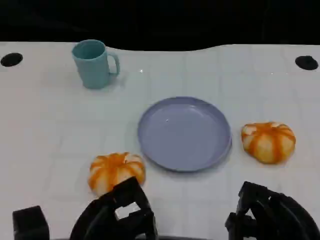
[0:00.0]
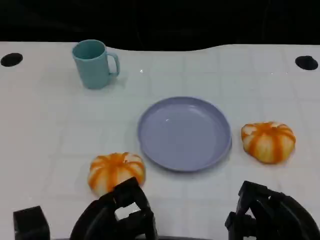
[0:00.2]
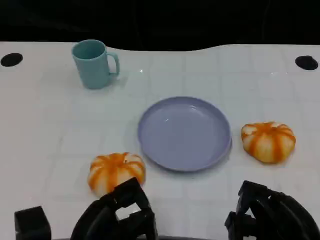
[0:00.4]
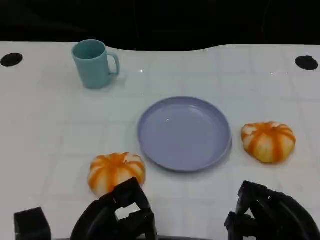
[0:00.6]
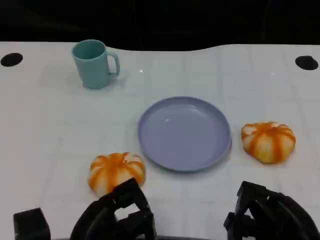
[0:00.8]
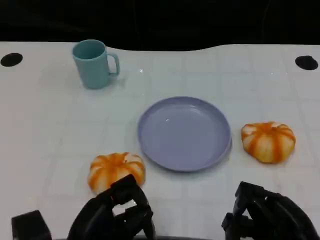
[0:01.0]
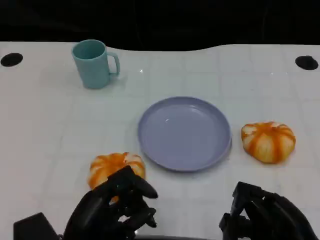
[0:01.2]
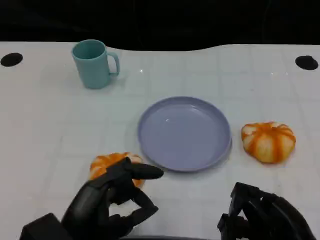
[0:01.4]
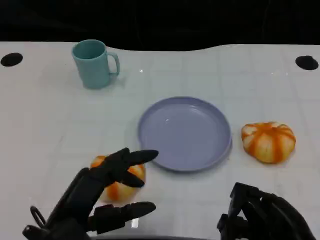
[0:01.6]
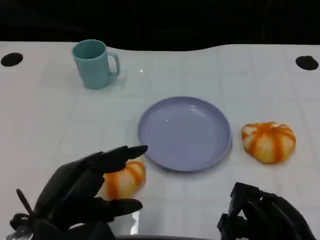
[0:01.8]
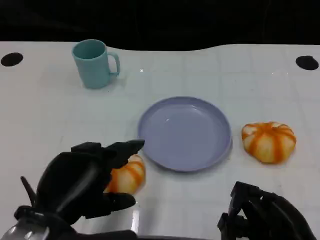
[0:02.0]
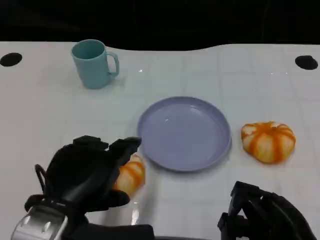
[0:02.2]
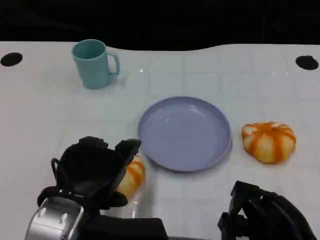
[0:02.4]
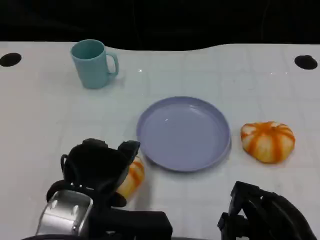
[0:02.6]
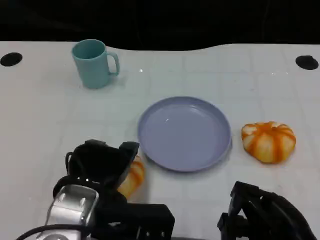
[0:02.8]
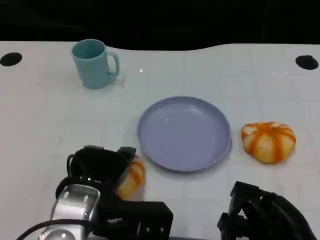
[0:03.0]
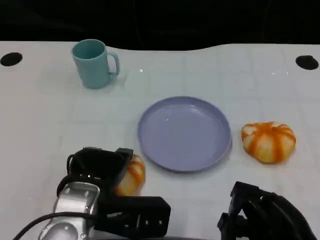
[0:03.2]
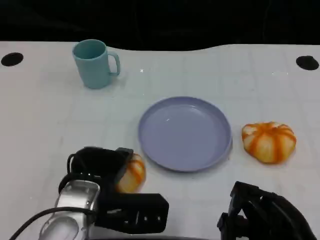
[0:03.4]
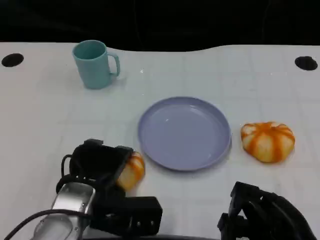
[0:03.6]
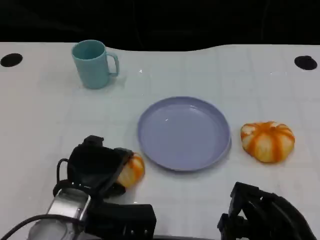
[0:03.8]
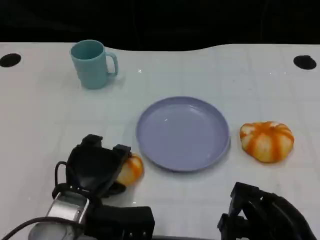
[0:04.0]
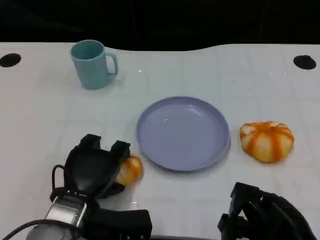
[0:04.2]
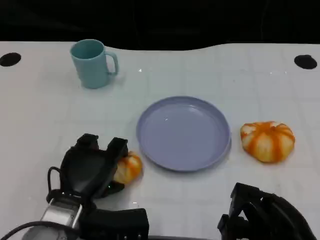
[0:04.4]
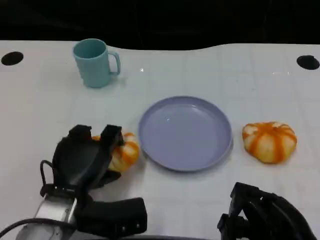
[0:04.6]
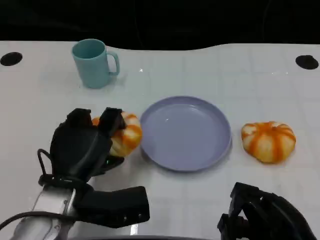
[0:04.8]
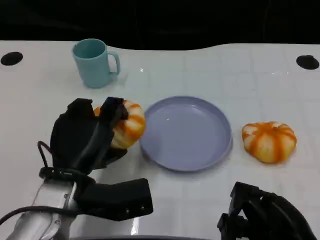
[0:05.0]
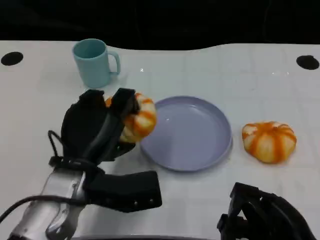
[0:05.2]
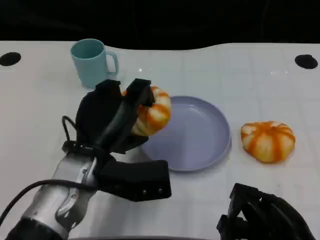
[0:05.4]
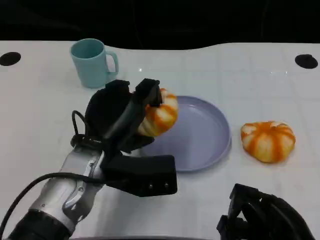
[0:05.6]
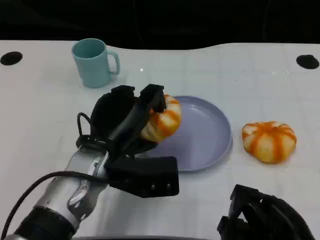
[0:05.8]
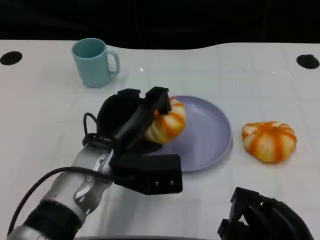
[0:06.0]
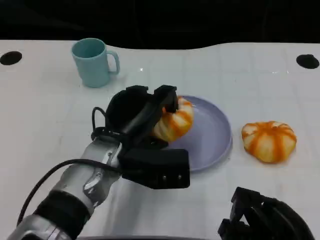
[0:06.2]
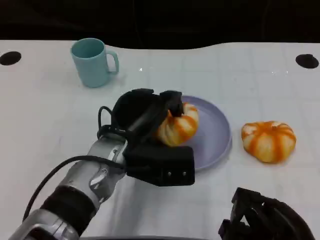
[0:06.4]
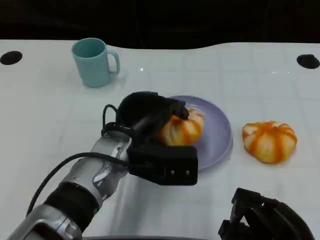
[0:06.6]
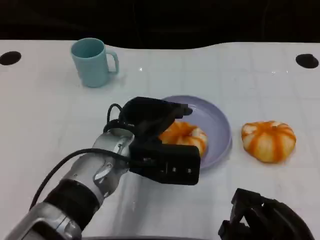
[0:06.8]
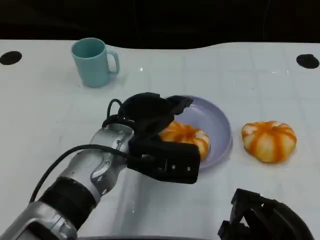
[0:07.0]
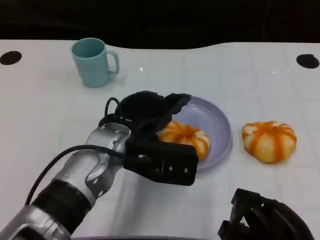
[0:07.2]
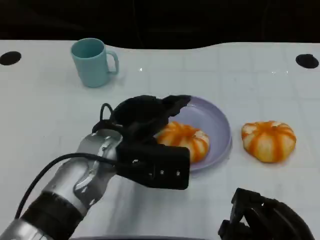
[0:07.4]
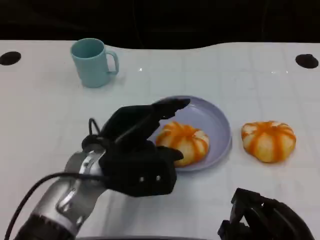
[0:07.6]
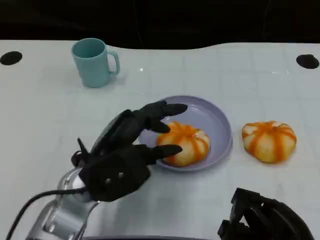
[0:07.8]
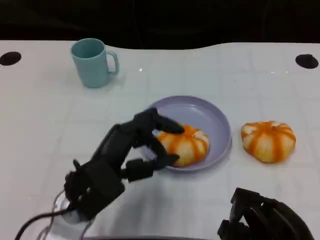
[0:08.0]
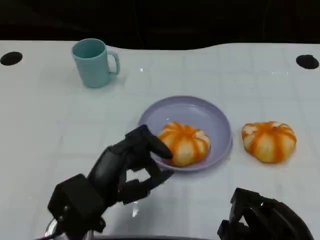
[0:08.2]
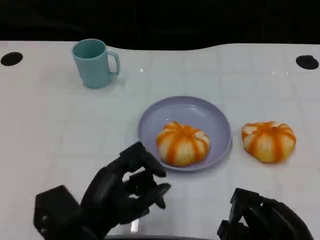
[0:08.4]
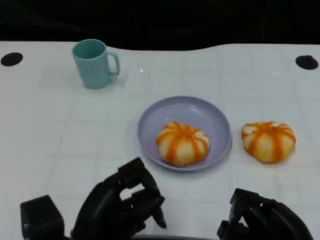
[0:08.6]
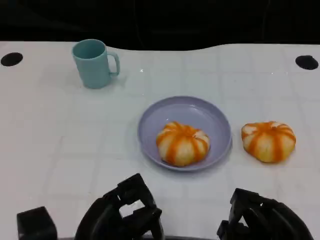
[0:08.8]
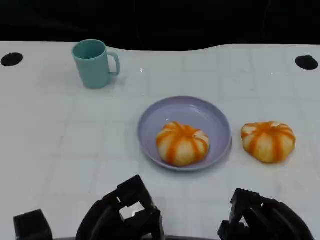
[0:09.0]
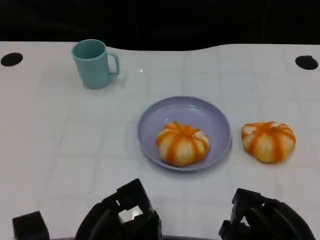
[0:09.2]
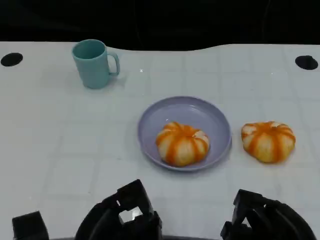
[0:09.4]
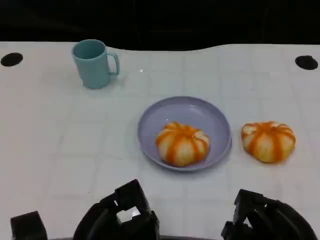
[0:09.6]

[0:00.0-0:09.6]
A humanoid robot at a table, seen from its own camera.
Task of the whole recording: Grasp the bread from the table and place it into the plate.
0:00.0 to 0:01.6: The left hand is displaced upward by some 5 cm.
0:01.6 to 0:03.2: The left hand shifts approximately 5 cm forward.
0:04.8 to 0:06.4: The left hand travels to the right and forward by about 10 cm.
0:06.4 to 0:08.0: The left hand shifts approximately 10 cm backward and to the left.
0:08.0 to 0:09.6: The left hand is displaced backward by roughly 10 cm.

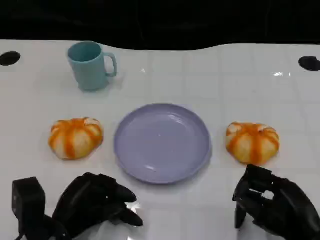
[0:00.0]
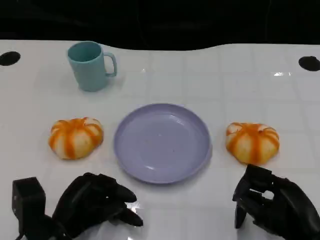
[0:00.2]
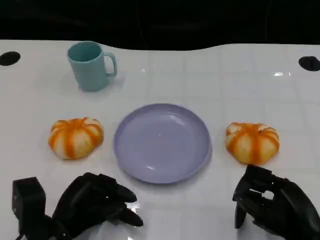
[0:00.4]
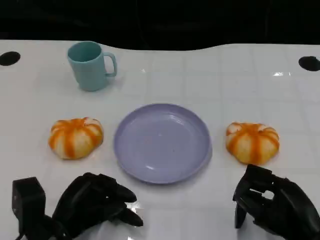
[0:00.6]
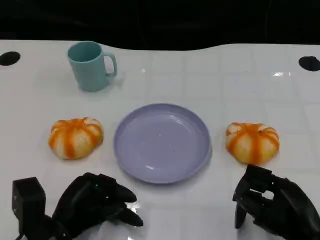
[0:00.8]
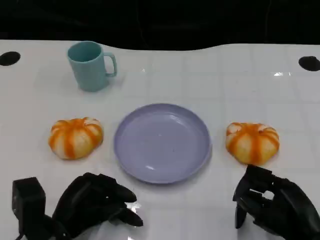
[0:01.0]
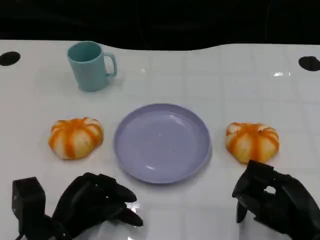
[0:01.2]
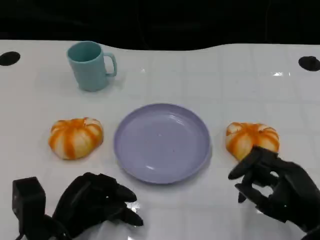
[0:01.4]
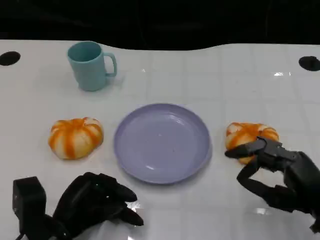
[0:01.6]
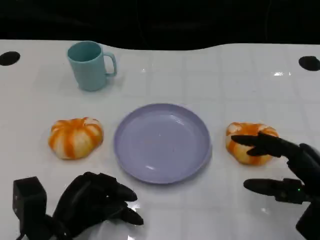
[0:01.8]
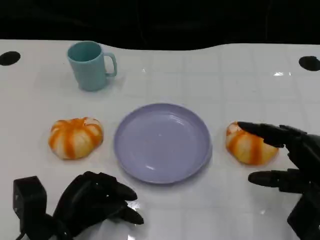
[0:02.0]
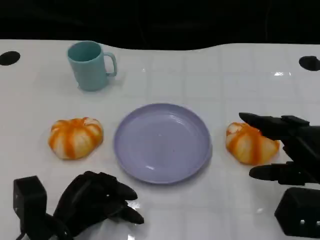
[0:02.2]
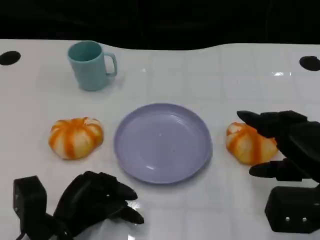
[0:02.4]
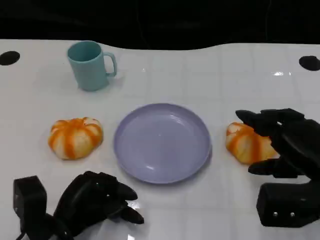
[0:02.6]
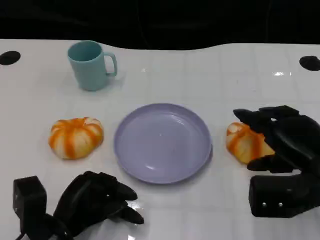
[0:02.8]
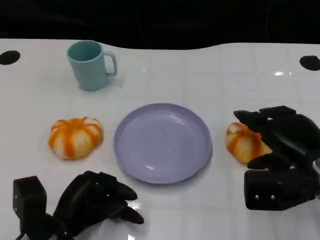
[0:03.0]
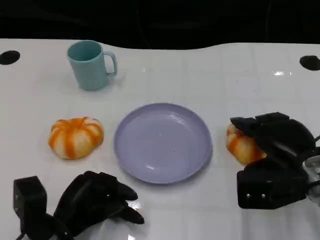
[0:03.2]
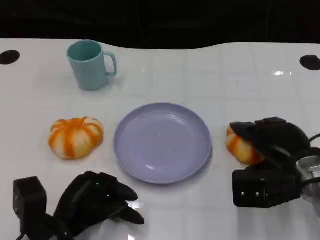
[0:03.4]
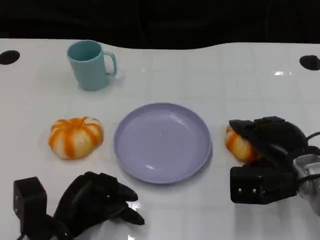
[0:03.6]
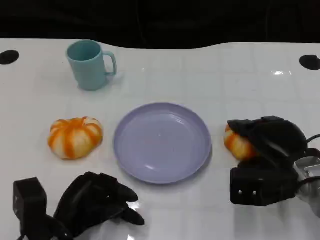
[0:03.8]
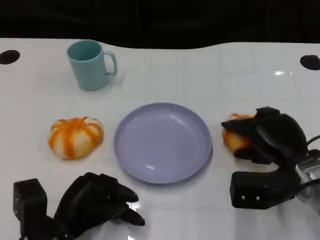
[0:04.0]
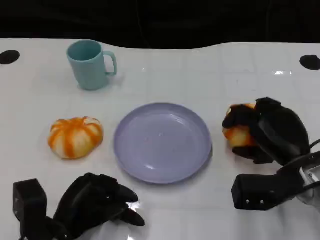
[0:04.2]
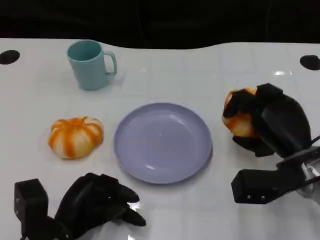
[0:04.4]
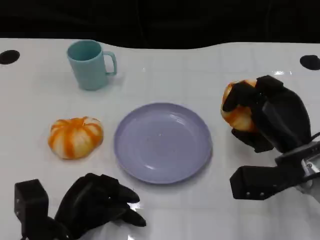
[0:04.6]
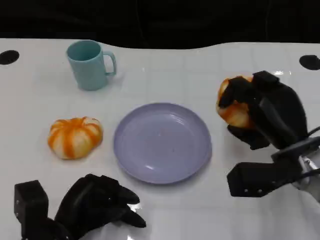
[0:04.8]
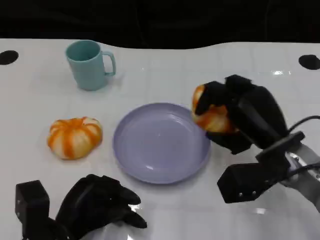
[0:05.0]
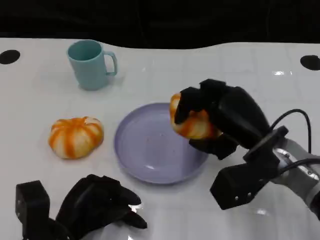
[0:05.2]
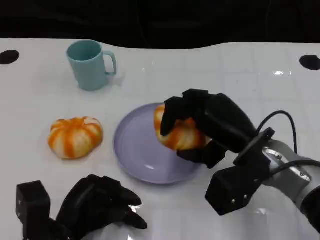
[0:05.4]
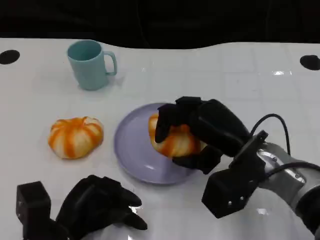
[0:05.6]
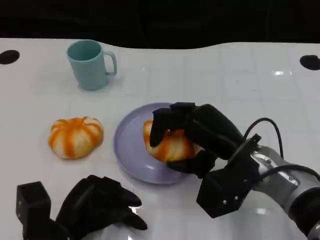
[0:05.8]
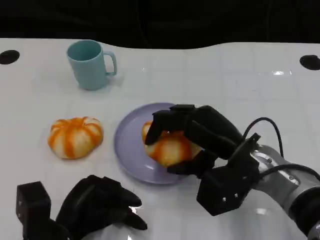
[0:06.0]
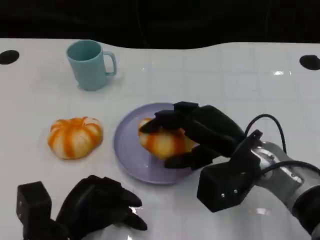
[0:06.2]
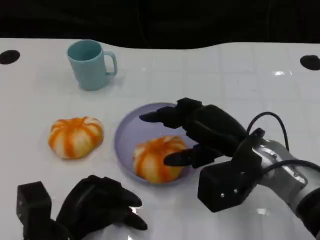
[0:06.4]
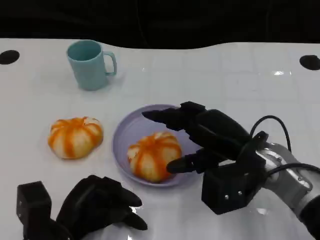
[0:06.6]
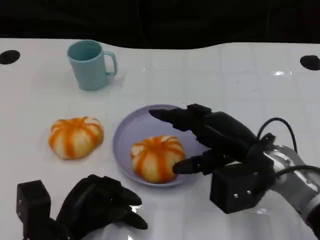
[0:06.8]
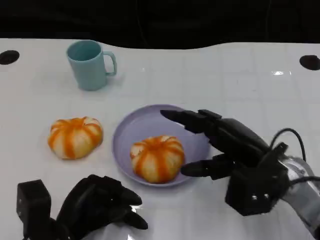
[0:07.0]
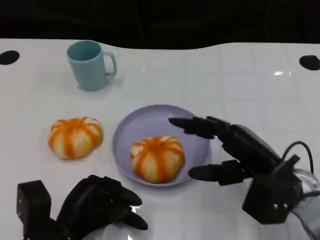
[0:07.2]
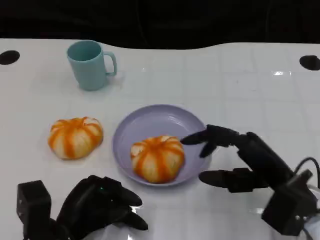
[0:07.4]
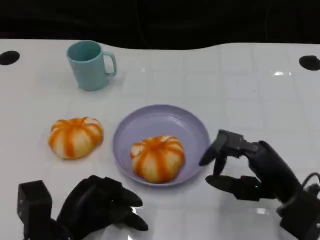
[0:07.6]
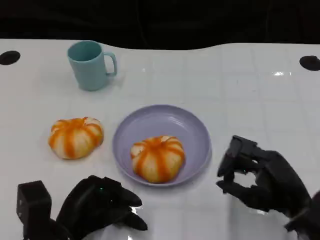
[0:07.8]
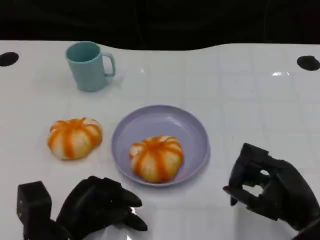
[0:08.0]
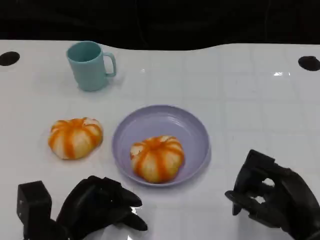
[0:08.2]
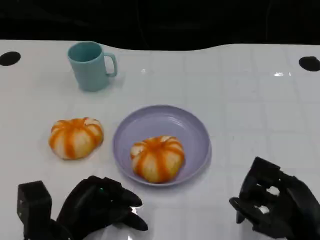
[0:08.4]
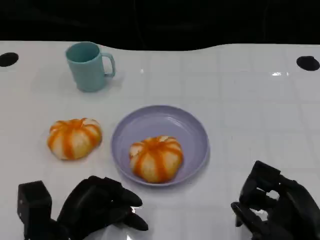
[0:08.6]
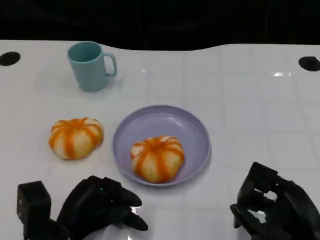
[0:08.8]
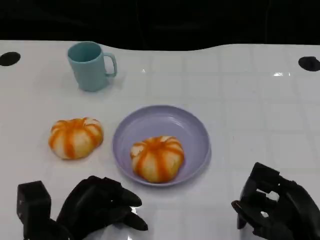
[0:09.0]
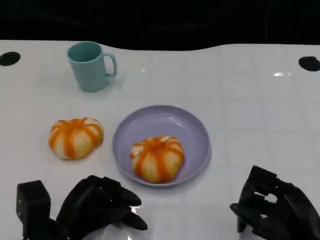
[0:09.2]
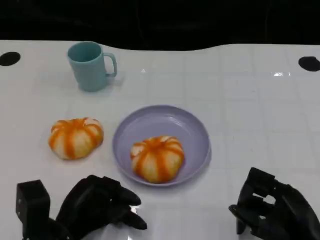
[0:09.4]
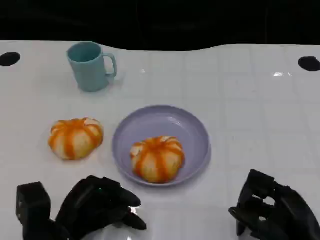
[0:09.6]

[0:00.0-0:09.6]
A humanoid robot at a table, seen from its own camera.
Task of the whole recording: Grasp the bread from the table and place it into the plate.
0:01.6 to 0:03.2: The right hand is displaced forward by roughly 10 cm.
0:04.8 to 0:06.4: The right hand moves to the left, roughly 5 cm.
0:06.4 to 0:08.0: The right hand shifts about 15 cm backward and to the right.
0:08.0 to 0:09.6: There are only small adjustments of the hands.

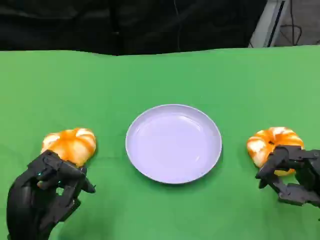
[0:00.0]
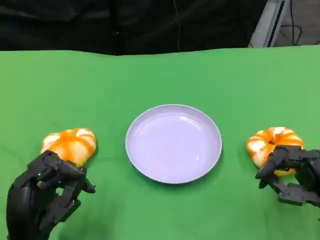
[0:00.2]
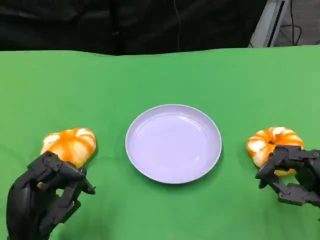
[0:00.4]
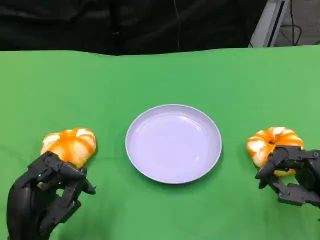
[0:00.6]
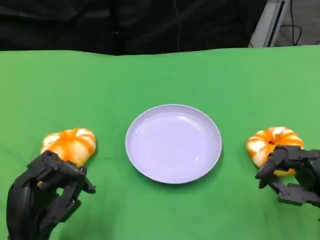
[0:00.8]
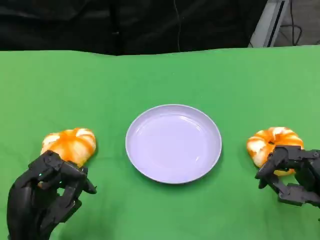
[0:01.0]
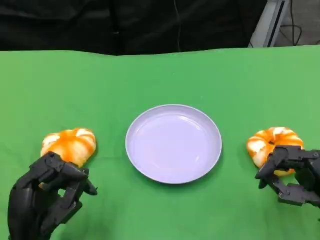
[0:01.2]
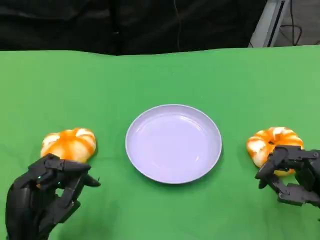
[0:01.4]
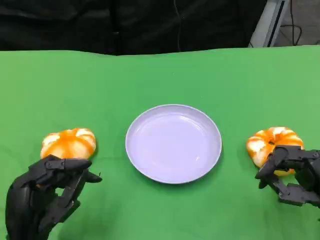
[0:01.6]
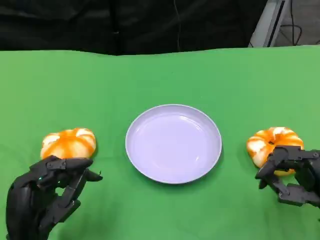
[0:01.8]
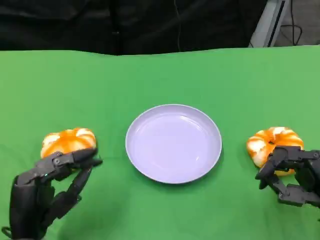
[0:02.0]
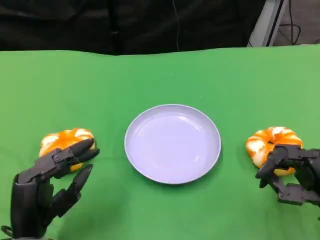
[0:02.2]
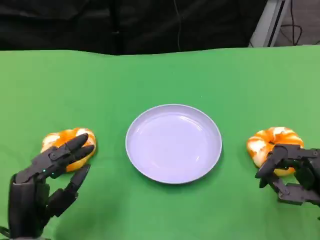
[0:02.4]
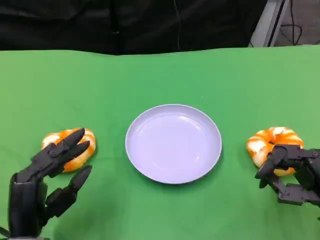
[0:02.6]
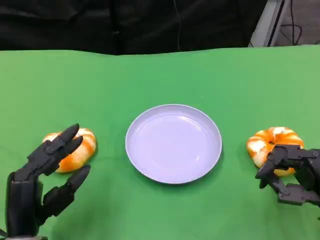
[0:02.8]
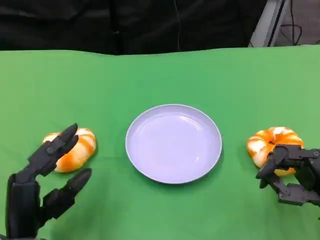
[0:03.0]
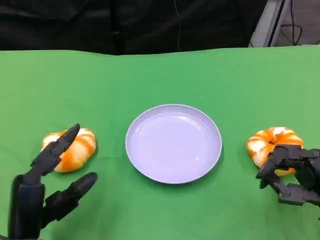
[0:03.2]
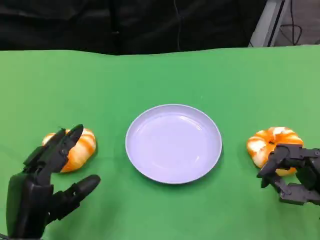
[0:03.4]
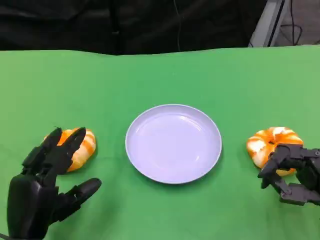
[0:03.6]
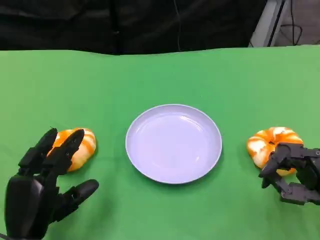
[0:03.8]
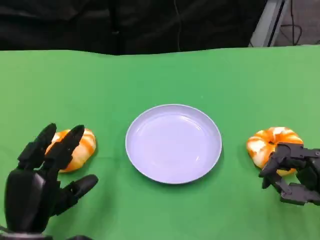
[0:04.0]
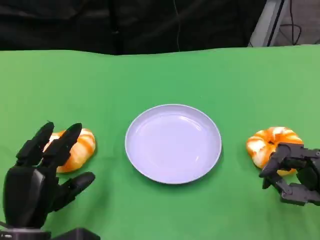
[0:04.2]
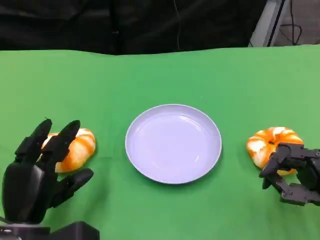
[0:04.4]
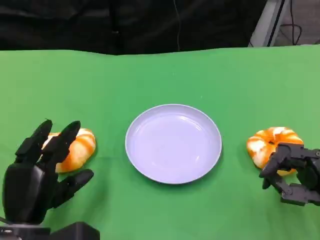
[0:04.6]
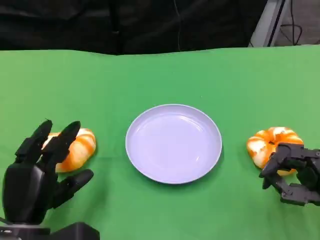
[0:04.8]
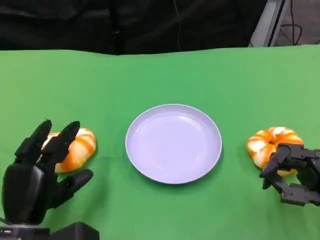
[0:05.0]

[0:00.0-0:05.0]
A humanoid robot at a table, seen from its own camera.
Task of the whole recording: Grasp the bread from the table and place it into the plate.
0:00.0 to 0:01.6: Both hands stay about where they are.
0:03.4 to 0:05.0: The hands stay close to where they were, moving slightly.
